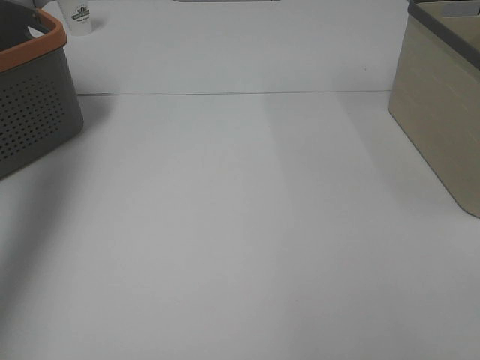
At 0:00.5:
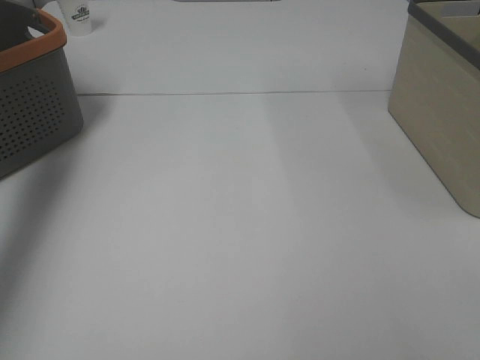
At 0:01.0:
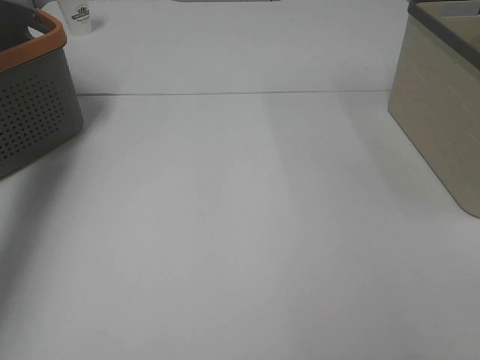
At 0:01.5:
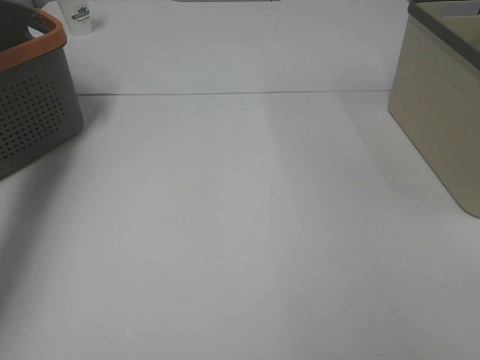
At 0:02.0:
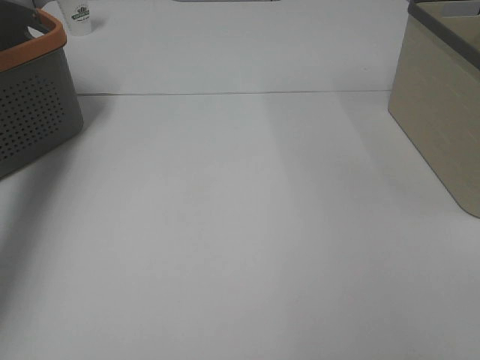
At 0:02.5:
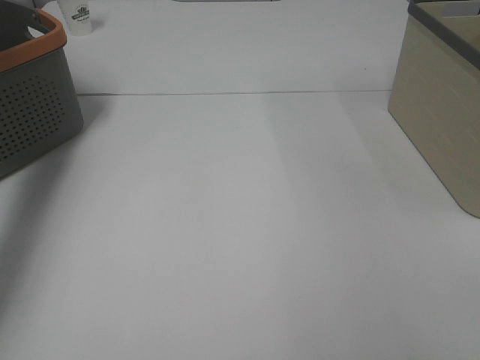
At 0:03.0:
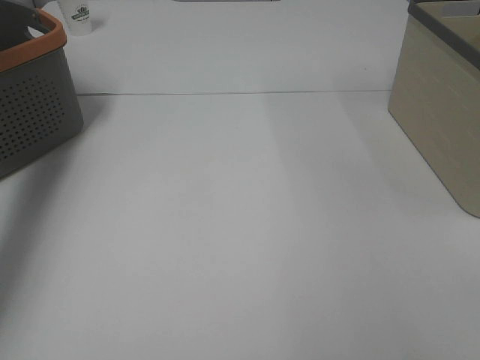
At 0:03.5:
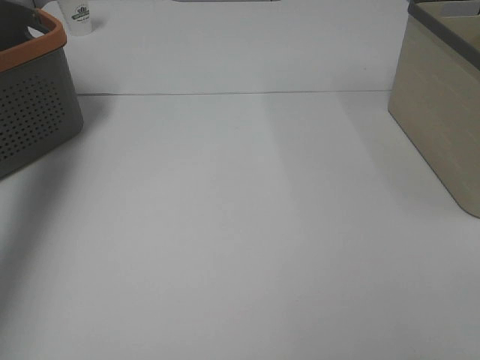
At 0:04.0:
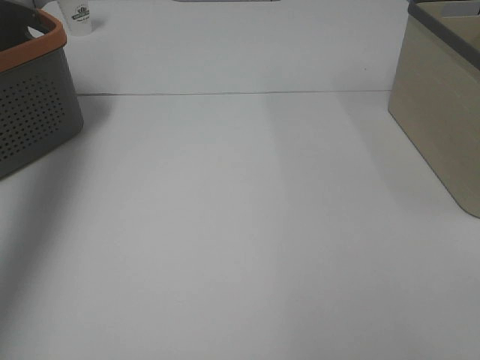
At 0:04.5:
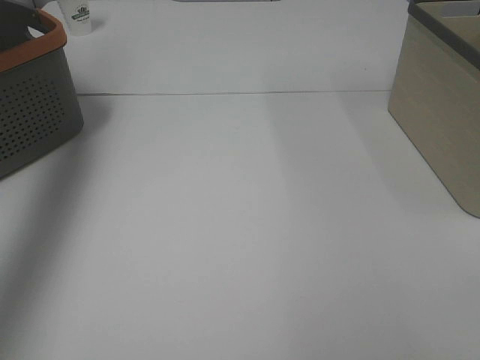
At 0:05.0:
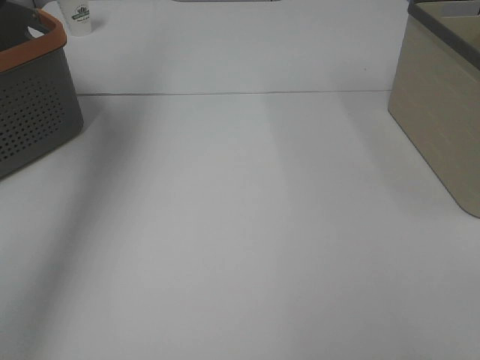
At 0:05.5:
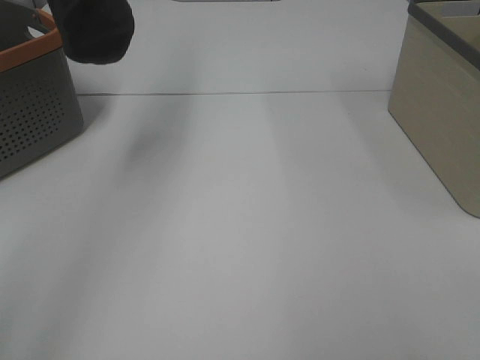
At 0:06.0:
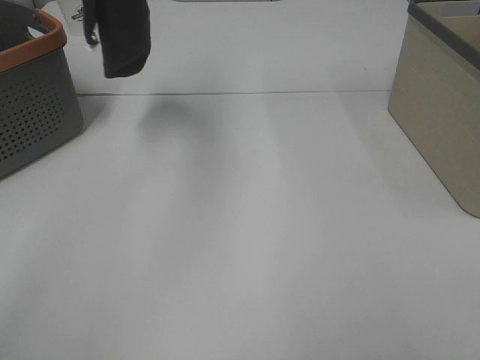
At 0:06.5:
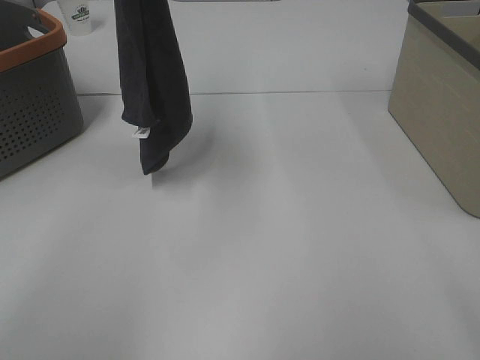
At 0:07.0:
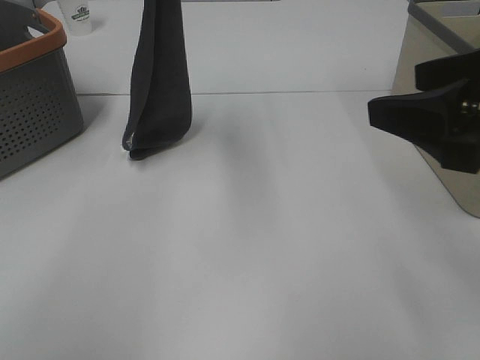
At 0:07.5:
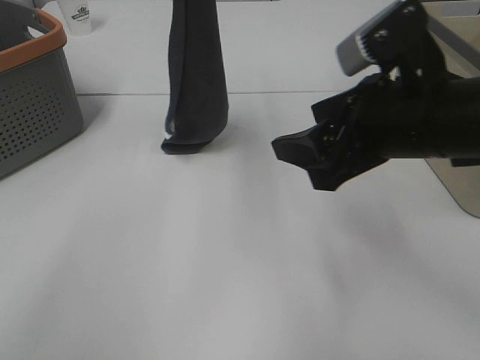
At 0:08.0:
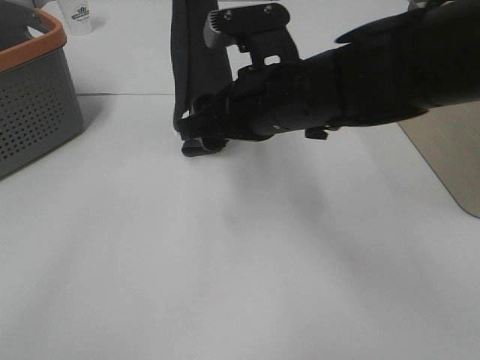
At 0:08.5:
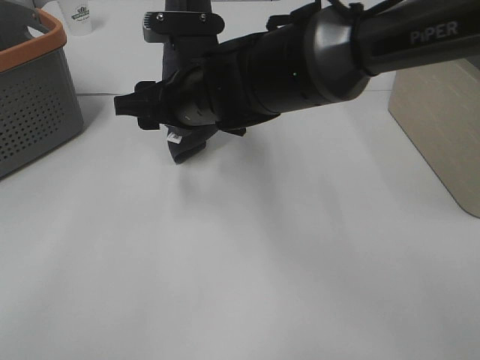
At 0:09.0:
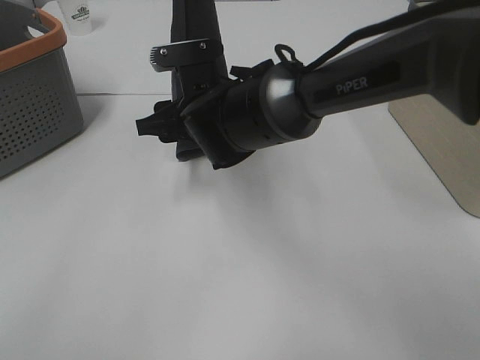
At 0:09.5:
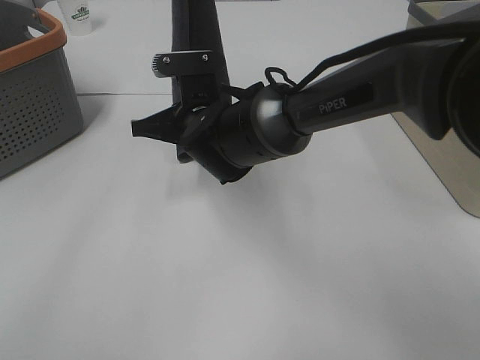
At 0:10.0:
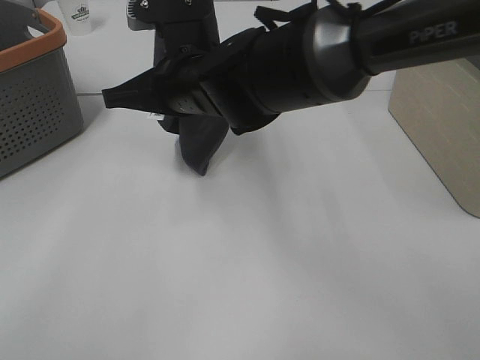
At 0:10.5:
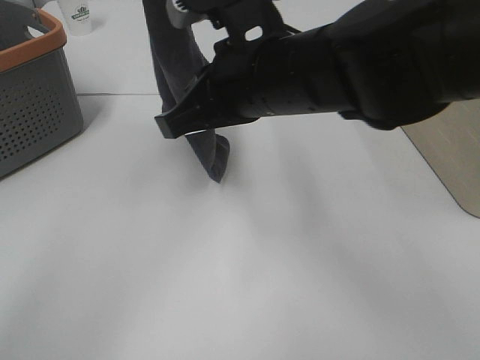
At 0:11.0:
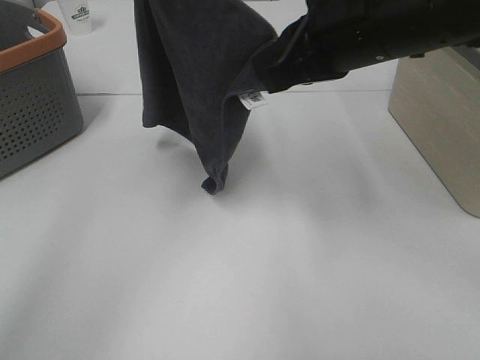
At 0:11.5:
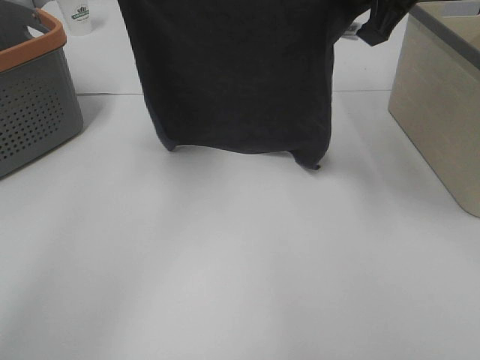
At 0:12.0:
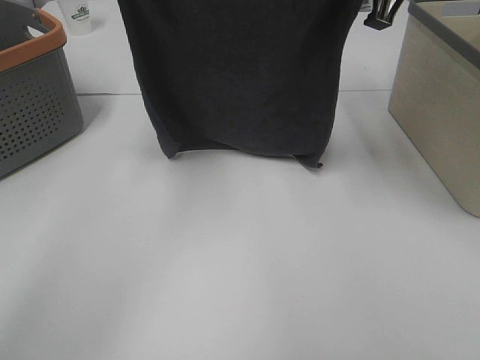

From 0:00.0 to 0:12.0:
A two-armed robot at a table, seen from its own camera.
Task of the whole recording: Remove the towel and place it.
Step, from 0:05.5 to 0:09.0: Right hand: grab a corner of the grey towel and straighten it.
Step, from 0:09.5 to 0:11.0: Left hand: spread the grey towel flat on the table.
Step, from 0:09.5 to 0:11.0: Right hand: spread the grey towel flat on the table.
From 0:02.0 to 0:04.0: The left gripper travels upward by roughly 25 cm, and closes its fingers.
From 0:04.0 to 0:06.0: The left gripper travels to the right by about 25 cm.
From 0:06.0 to 0:08.0: The left gripper is displaced downward and to the right by some 15 cm. The right gripper shifts roughly 35 cm forward and to the left.
From 0:08.0 to 0:10.0: The right gripper travels to the left by roughly 10 cm, and closes up.
From 0:10.0 to 0:12.0: The right gripper goes approximately 25 cm to the right and upward, while the left gripper goes roughly 5 cm to the left.

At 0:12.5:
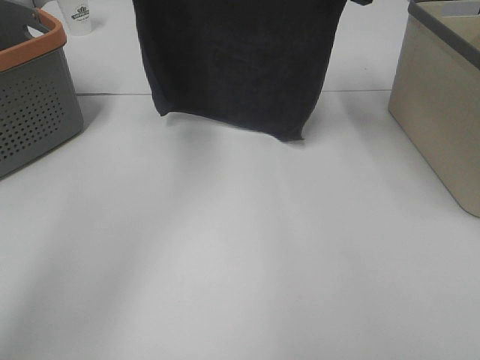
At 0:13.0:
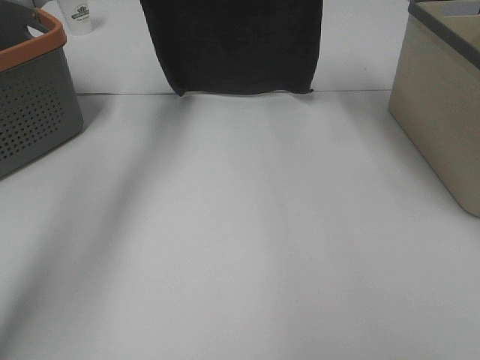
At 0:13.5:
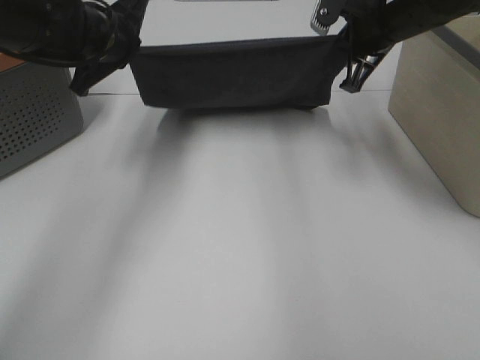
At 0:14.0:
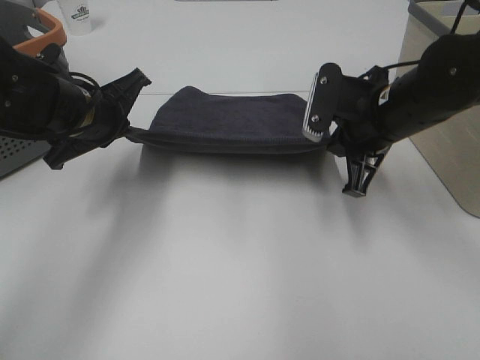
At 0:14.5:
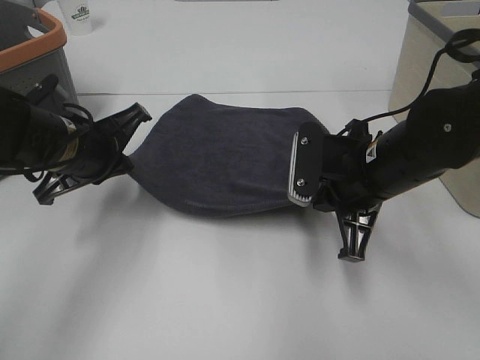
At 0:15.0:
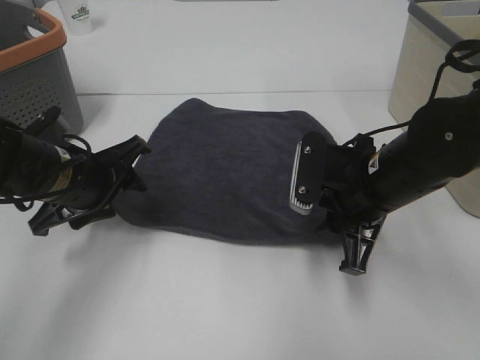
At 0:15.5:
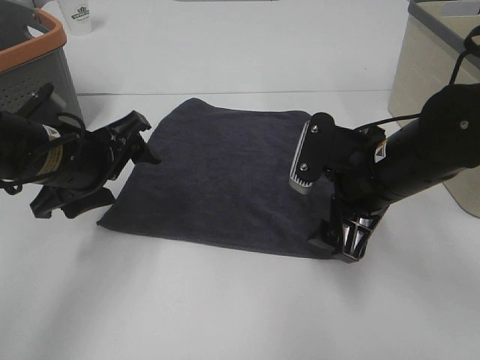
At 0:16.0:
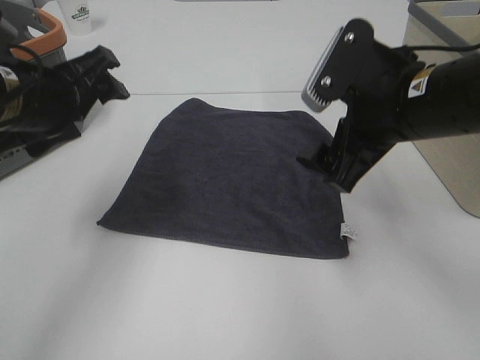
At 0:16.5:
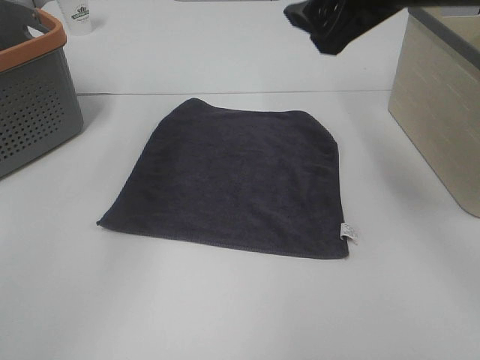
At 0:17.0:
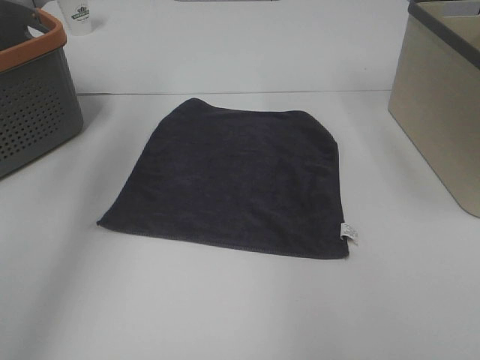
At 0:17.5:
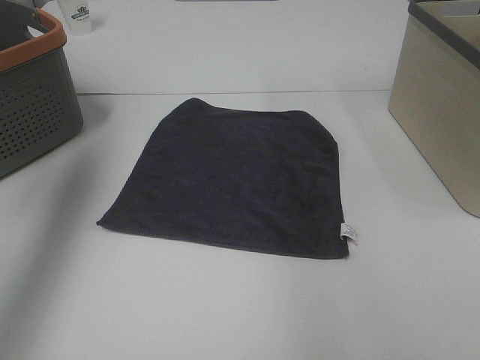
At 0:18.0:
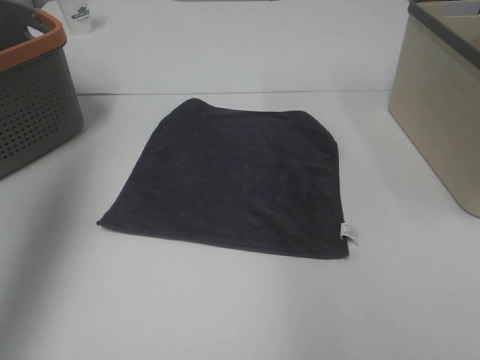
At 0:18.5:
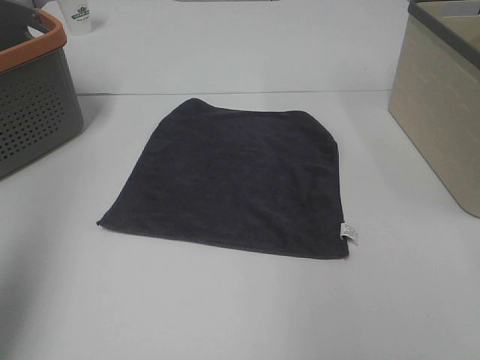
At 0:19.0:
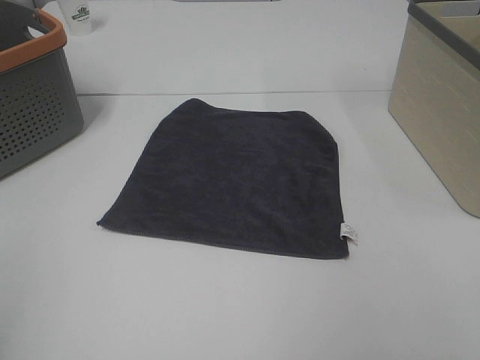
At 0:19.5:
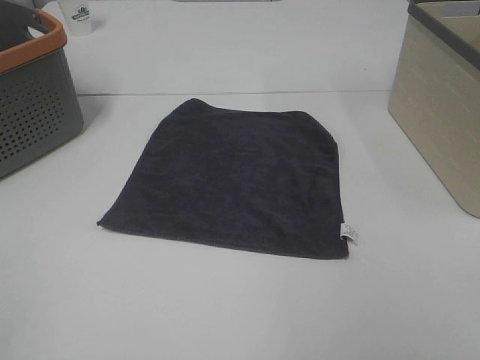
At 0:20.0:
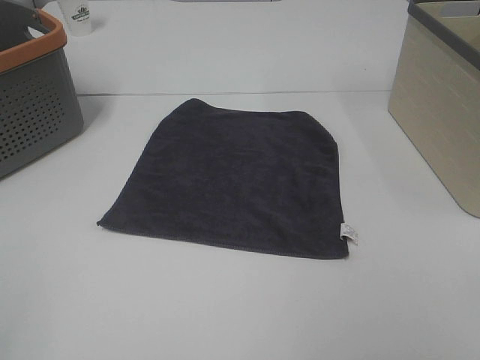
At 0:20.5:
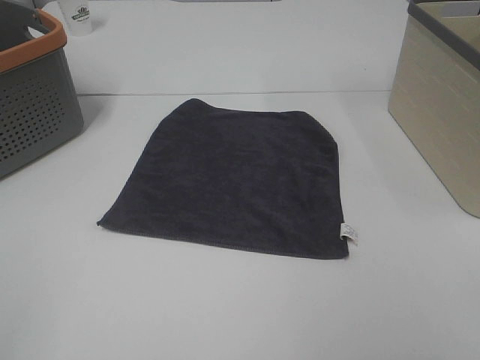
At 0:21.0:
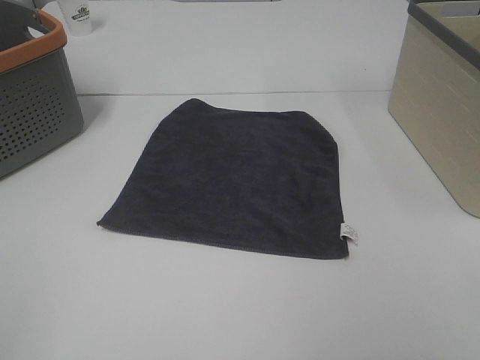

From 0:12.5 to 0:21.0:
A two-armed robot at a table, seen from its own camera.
Task of the whole recording: Remove the towel and place it.
From 0:12.5 to 0:14.5: Both grippers travel together downward and backward, some 25 cm.
From 0:14.5 to 0:16.5: Both grippers move upward, about 20 cm. The right gripper opens up. Meanwhile the left gripper opens.
From 0:16.5 to 0:19.0: The left gripper moves backward, roughly 30 cm; the right gripper travels backward and to the right by roughly 25 cm.

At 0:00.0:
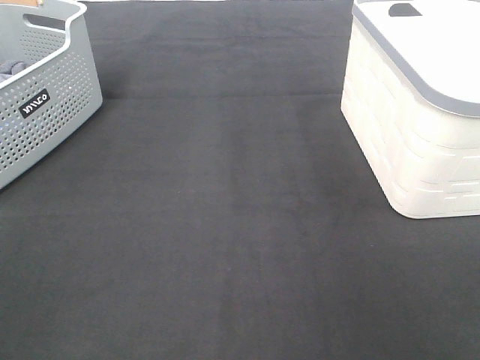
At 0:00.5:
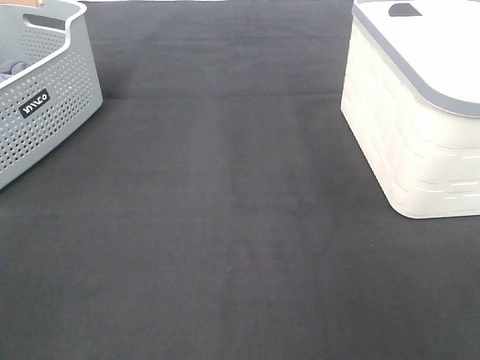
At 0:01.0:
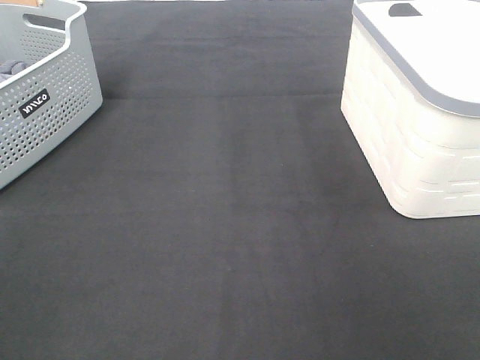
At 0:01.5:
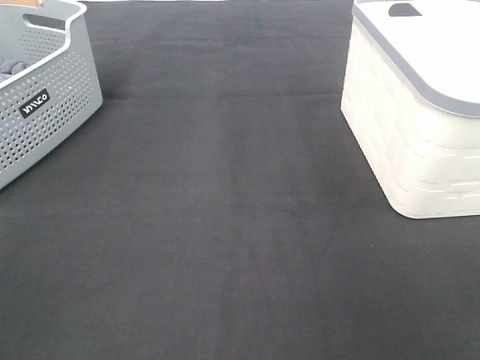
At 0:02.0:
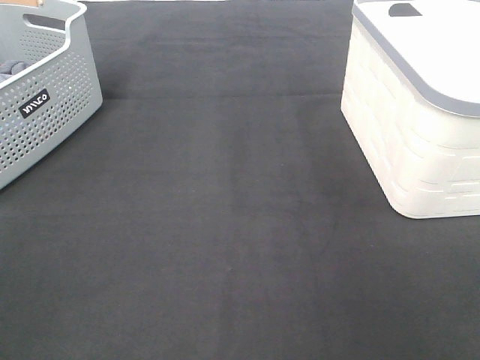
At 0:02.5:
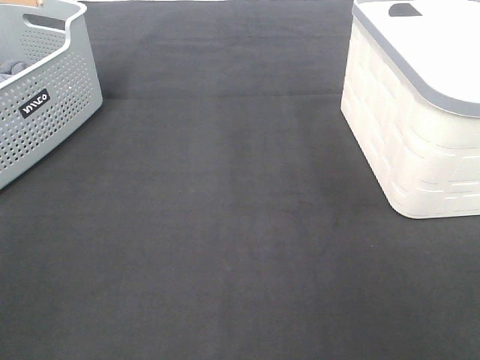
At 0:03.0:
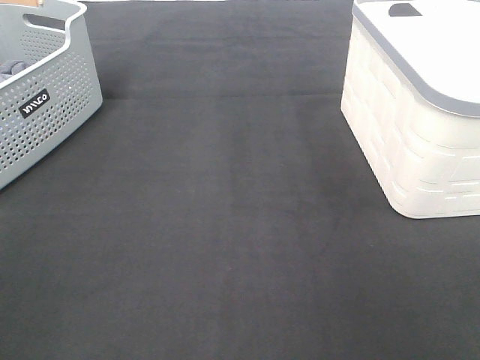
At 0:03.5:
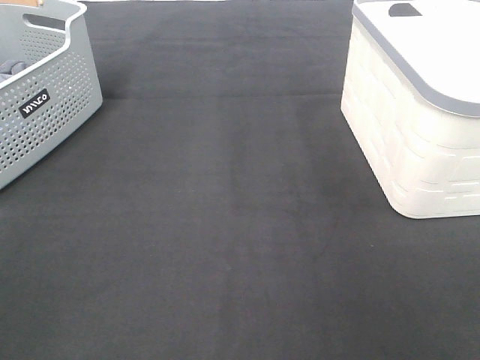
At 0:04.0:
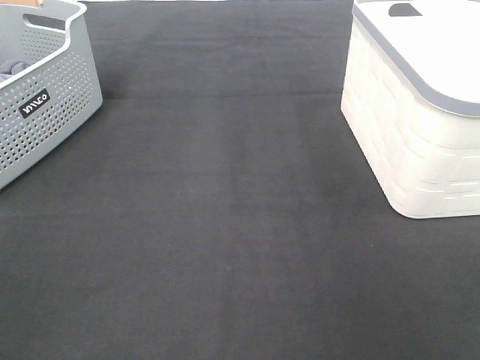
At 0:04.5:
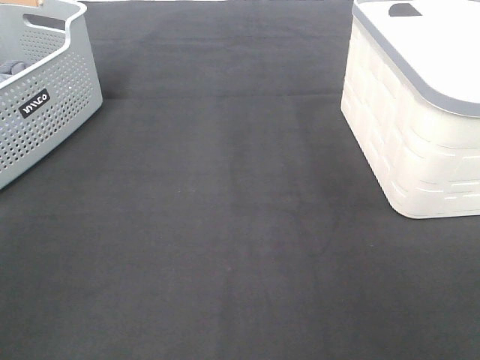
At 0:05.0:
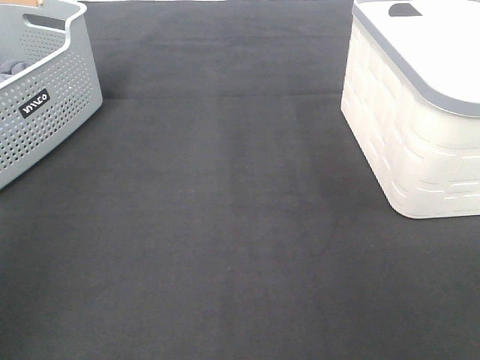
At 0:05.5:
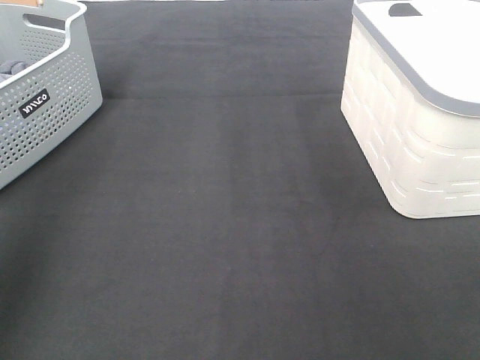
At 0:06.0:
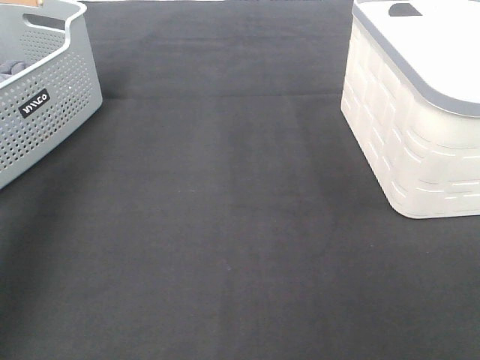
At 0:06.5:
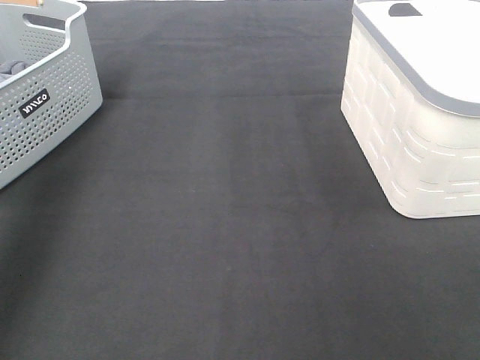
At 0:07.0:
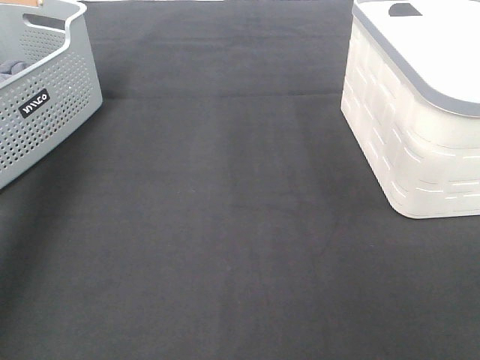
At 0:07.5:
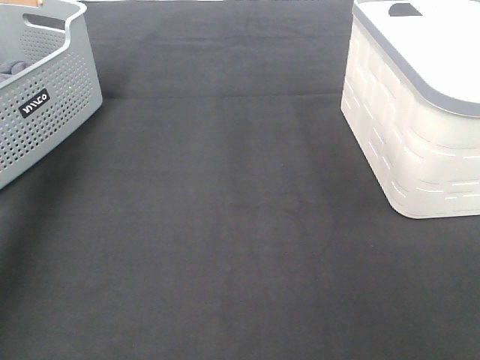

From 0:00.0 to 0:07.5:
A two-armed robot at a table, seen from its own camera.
Task of the whole recording: Remove the towel and place it.
From 0:00.0 to 0:04.0: Both grippers stay about where they are.
From 0:04.0 to 0:05.5: The left gripper shifts some 20 cm forward and upward.
From 0:05.5 to 0:07.5: The left gripper moves forward, about 25 cm.
